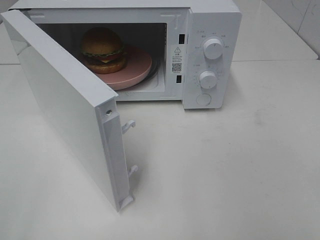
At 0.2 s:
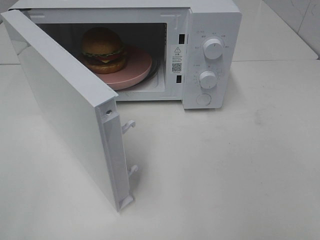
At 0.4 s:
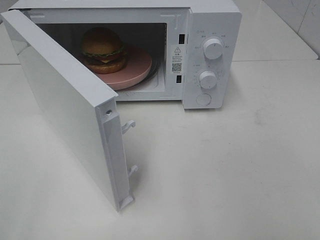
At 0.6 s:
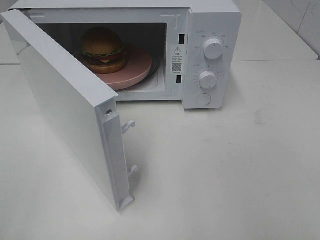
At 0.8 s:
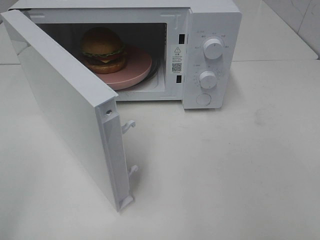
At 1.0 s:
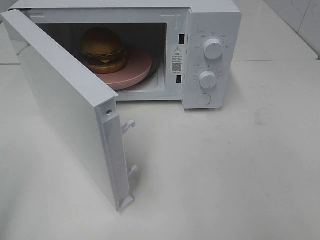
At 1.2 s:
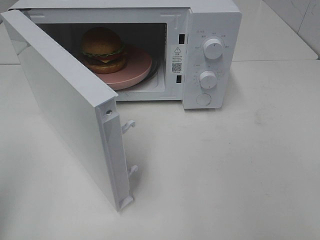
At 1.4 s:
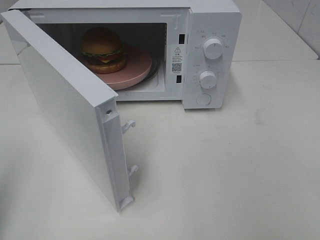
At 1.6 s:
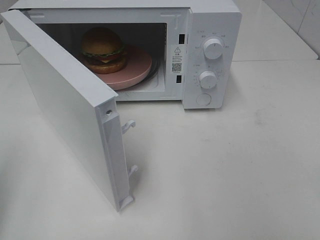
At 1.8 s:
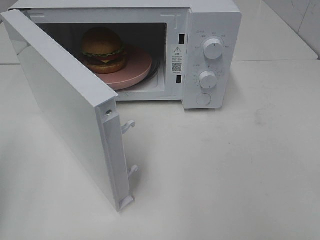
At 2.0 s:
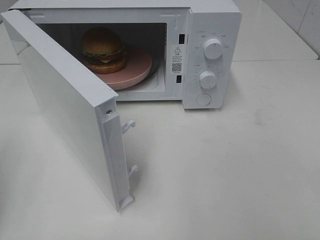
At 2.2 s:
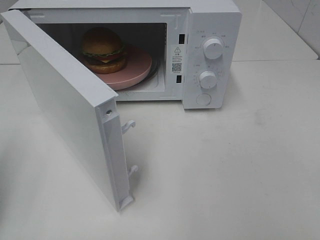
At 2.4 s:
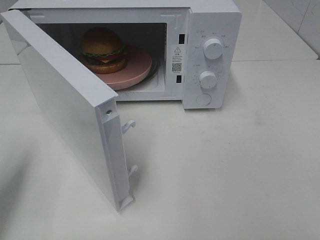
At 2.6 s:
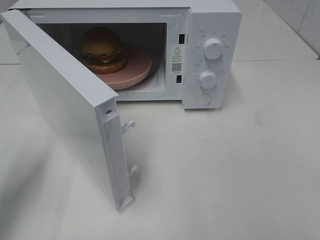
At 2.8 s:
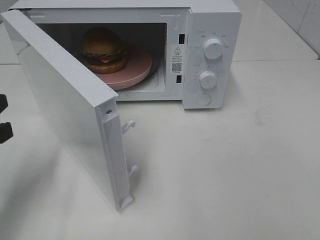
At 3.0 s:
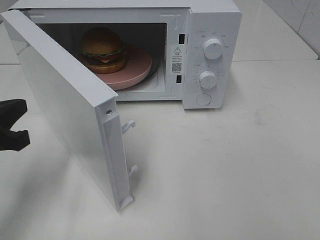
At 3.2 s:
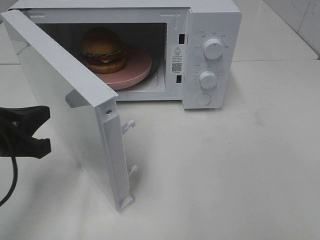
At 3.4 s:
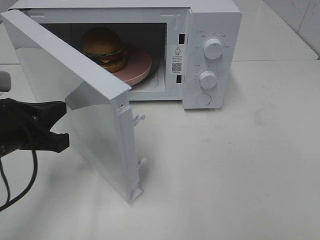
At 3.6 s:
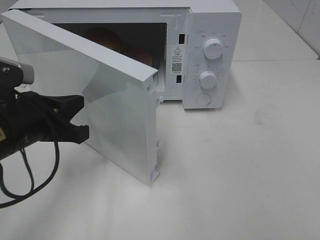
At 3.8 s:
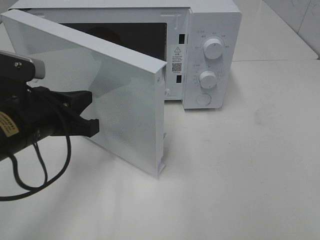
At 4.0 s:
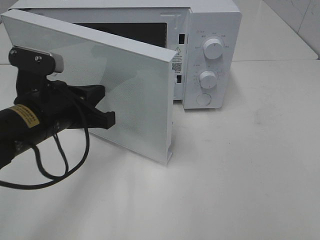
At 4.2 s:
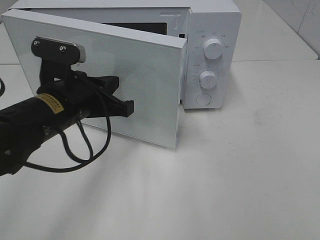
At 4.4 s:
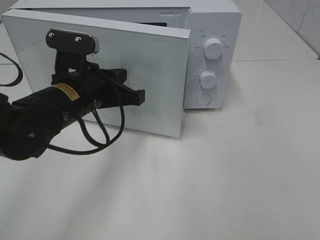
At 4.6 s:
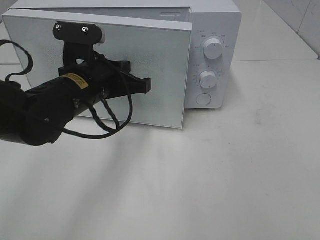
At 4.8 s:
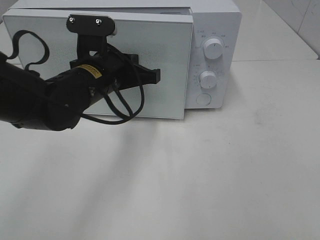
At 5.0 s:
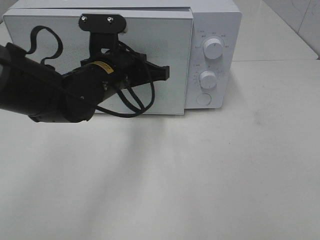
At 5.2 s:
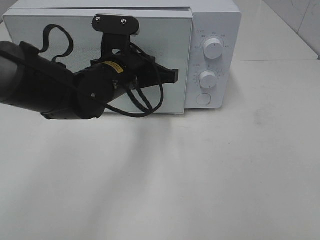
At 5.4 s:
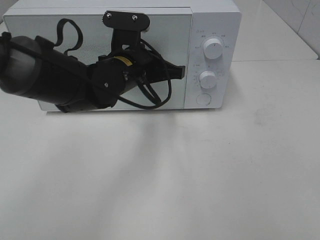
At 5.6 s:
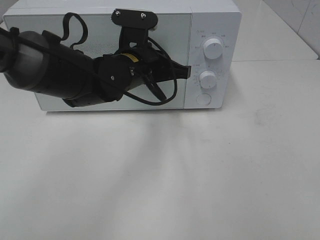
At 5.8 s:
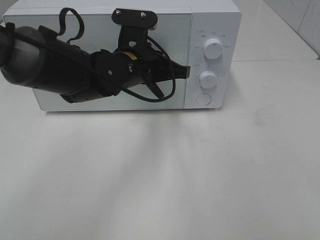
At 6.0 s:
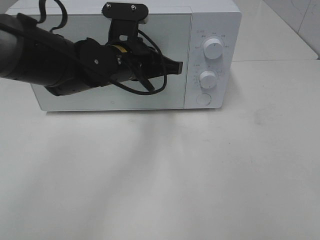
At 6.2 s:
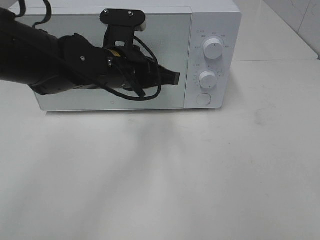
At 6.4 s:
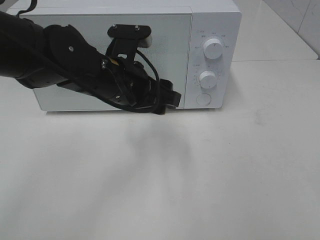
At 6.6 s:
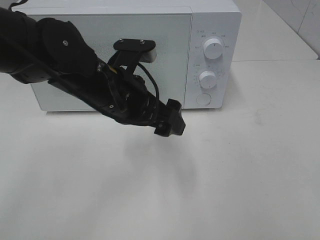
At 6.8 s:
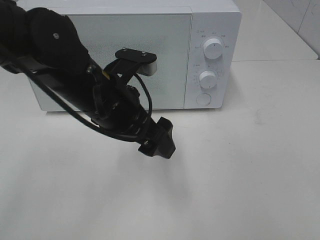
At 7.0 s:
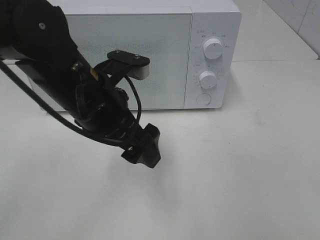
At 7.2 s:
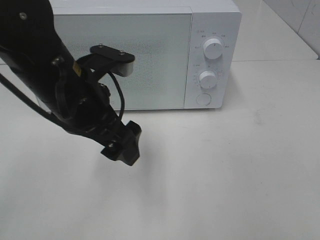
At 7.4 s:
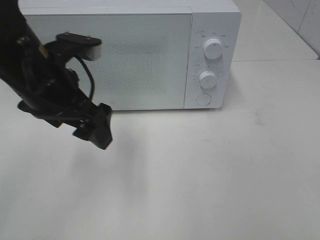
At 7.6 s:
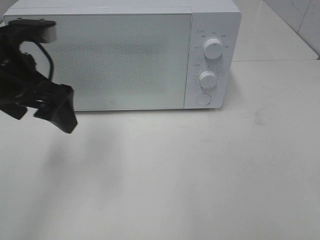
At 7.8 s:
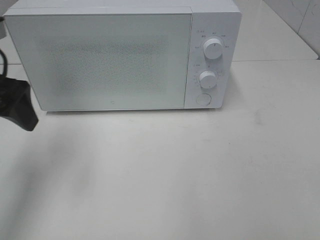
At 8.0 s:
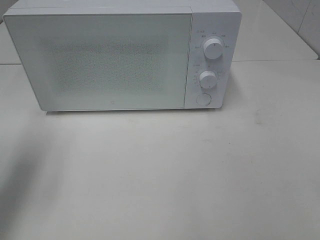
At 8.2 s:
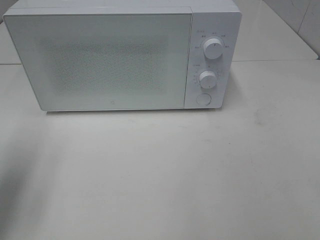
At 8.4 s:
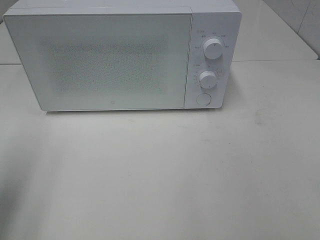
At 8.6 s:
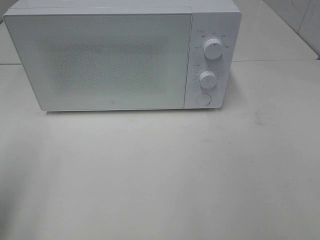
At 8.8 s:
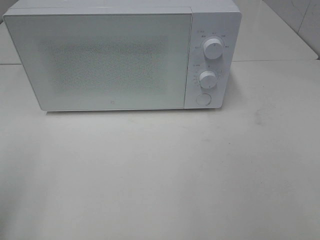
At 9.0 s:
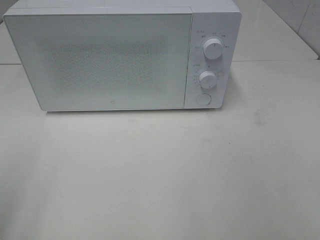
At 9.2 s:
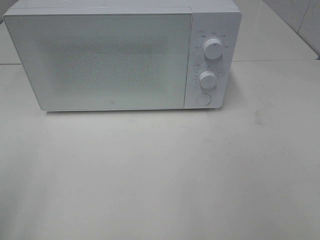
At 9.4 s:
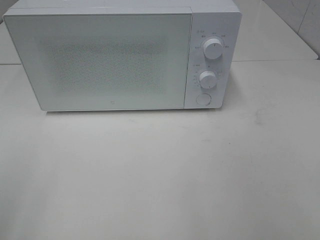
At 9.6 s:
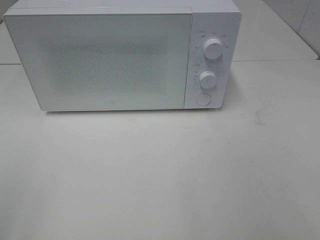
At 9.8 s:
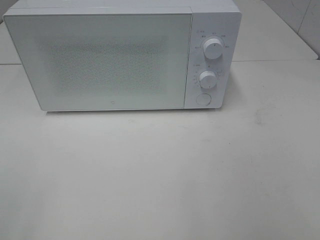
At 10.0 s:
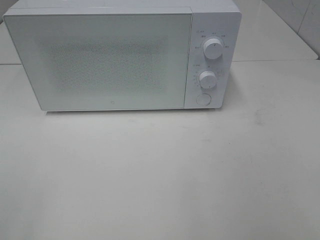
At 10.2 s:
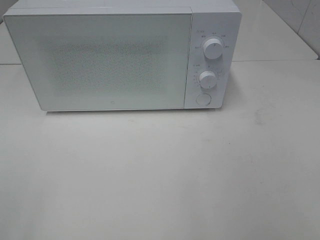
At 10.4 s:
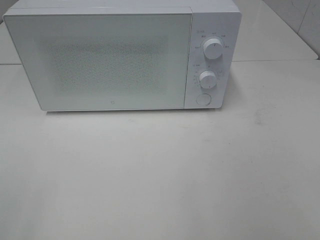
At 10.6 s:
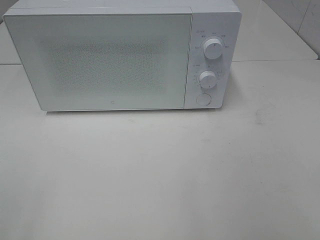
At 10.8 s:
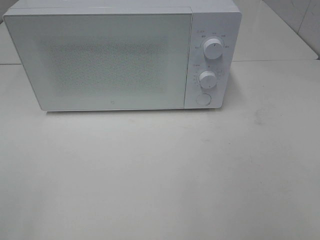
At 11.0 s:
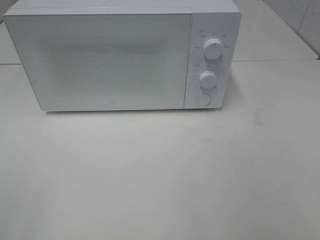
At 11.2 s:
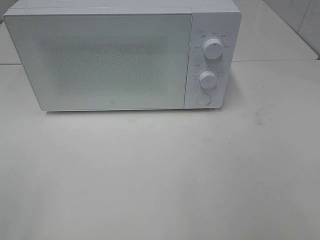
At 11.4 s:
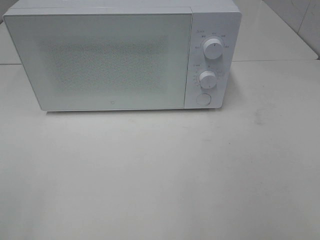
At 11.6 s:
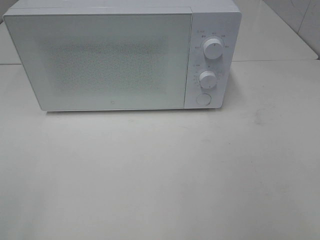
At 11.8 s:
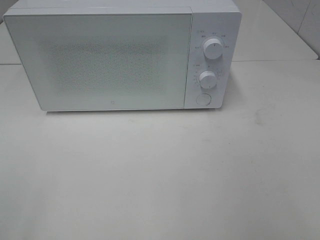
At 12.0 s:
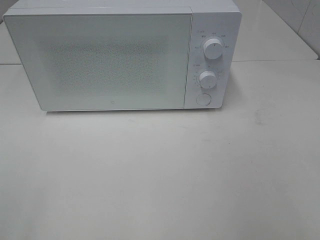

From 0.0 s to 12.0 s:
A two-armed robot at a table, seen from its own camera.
Task of the whole recording: Heat the burger.
Step, from 0.0 s to 6.0 s: Left hand: close the microwave door.
From 1.6 s to 3.0 s: The left gripper moves downward, forward and to the right, about 15 cm.
From 3.0 s to 4.4 s: The left gripper goes about 15 cm to the right and forward.
From 4.4 s to 6.0 s: The left gripper moves to the right and forward, about 10 cm.
From 6.0 s to 7.6 s: The left gripper travels to the left, backward and upward by about 20 cm, and opens.
From 7.6 s to 9.0 s: The left gripper travels backward and to the left by approximately 25 cm.

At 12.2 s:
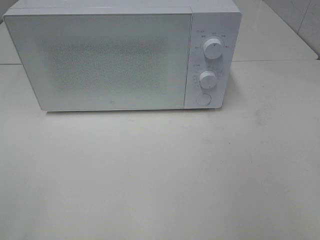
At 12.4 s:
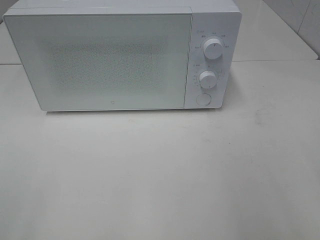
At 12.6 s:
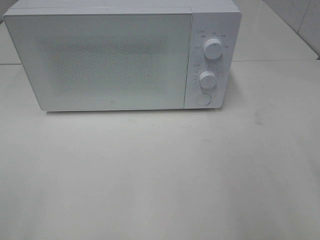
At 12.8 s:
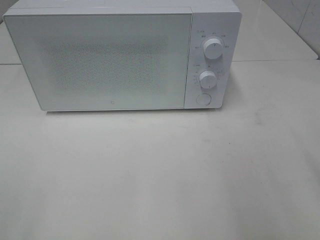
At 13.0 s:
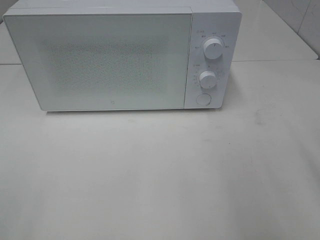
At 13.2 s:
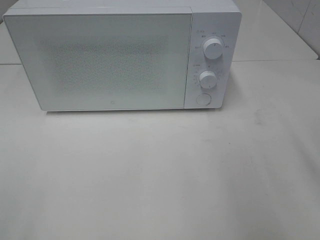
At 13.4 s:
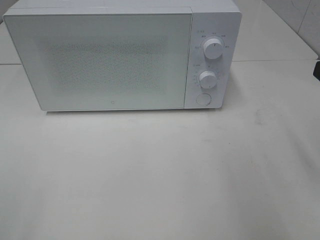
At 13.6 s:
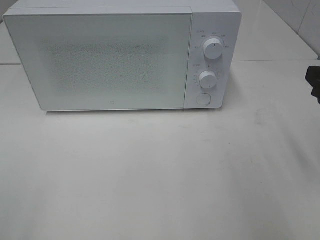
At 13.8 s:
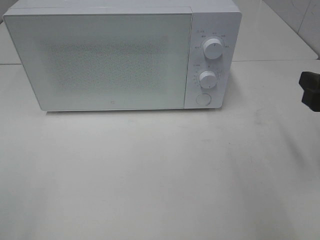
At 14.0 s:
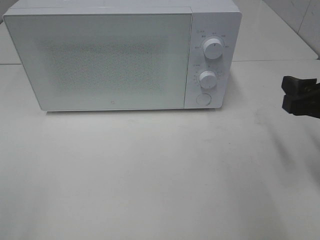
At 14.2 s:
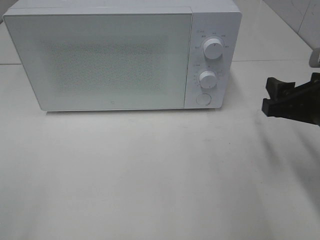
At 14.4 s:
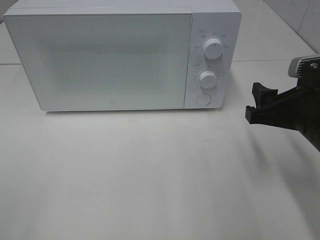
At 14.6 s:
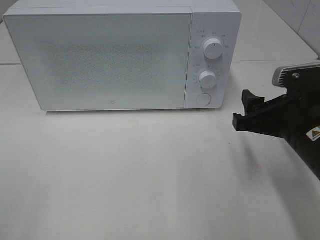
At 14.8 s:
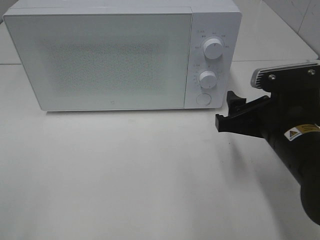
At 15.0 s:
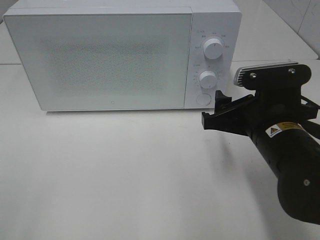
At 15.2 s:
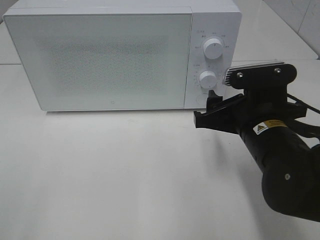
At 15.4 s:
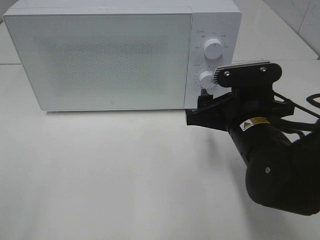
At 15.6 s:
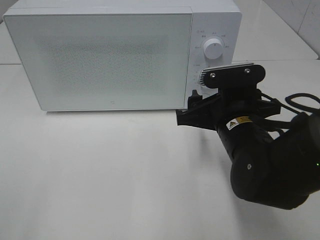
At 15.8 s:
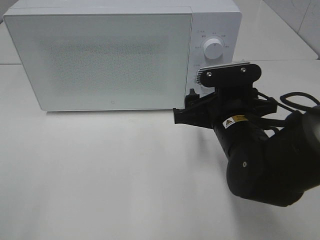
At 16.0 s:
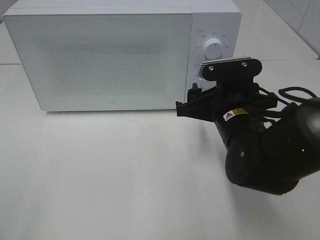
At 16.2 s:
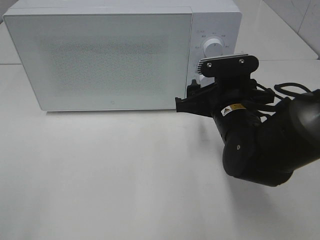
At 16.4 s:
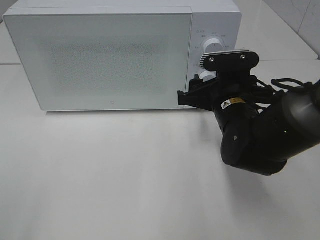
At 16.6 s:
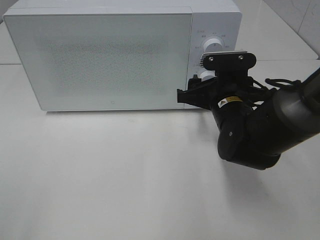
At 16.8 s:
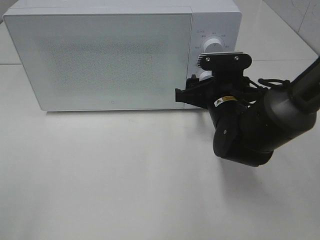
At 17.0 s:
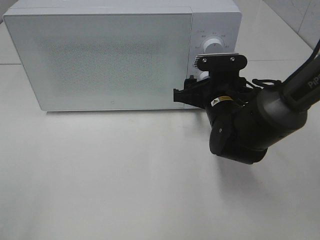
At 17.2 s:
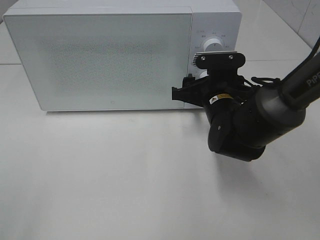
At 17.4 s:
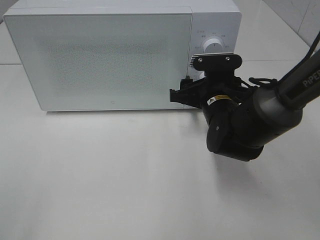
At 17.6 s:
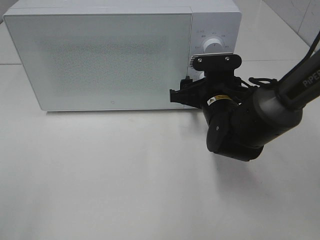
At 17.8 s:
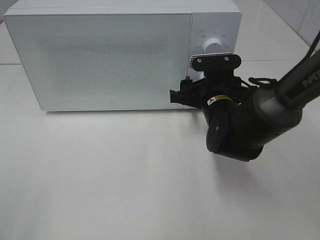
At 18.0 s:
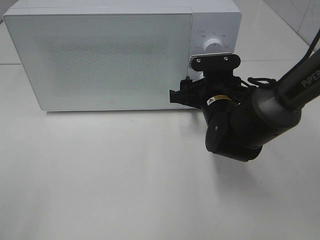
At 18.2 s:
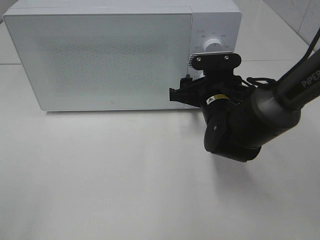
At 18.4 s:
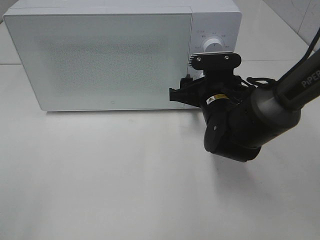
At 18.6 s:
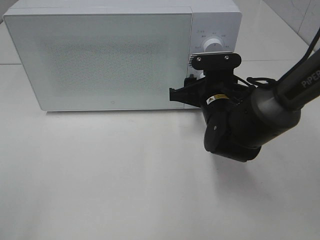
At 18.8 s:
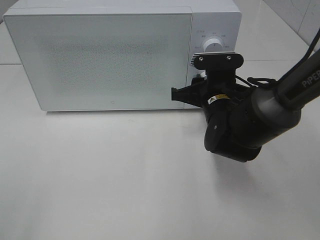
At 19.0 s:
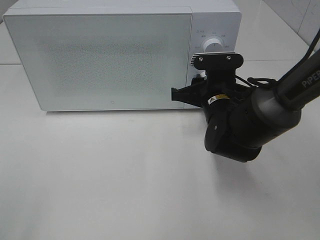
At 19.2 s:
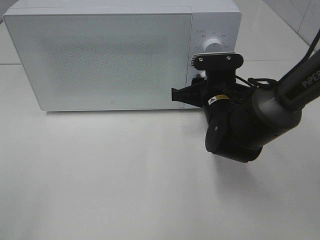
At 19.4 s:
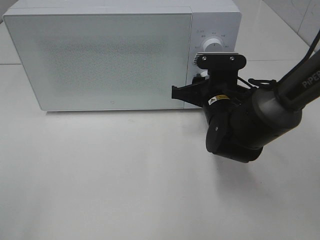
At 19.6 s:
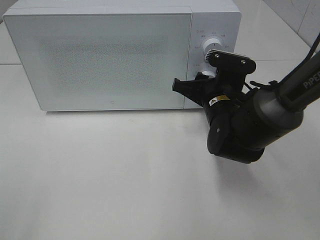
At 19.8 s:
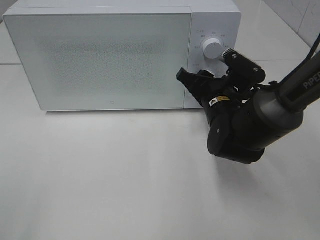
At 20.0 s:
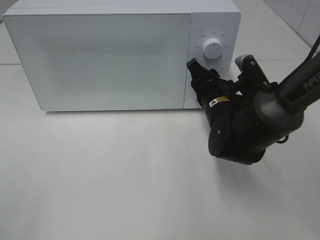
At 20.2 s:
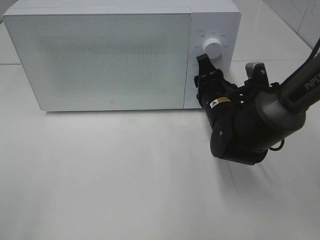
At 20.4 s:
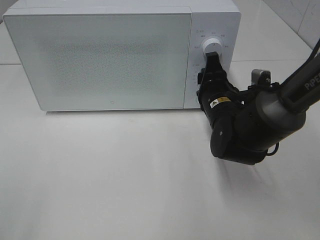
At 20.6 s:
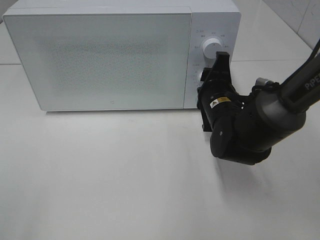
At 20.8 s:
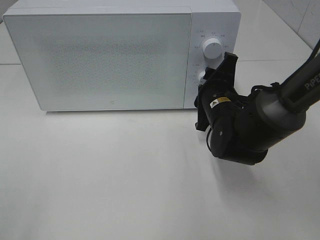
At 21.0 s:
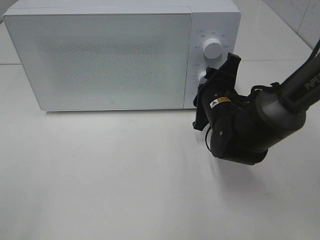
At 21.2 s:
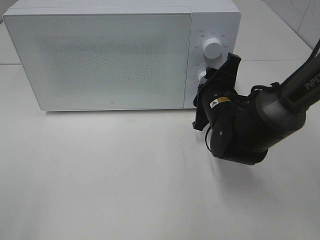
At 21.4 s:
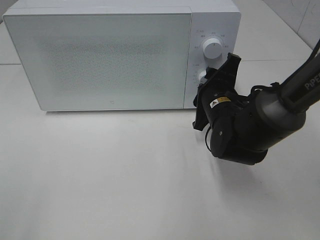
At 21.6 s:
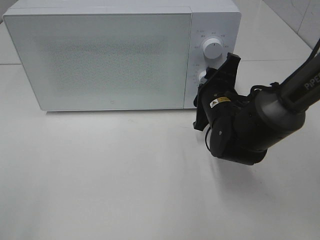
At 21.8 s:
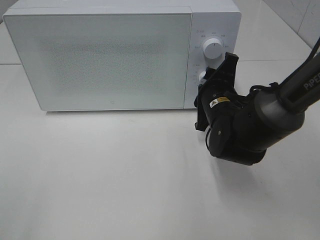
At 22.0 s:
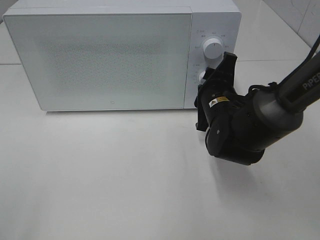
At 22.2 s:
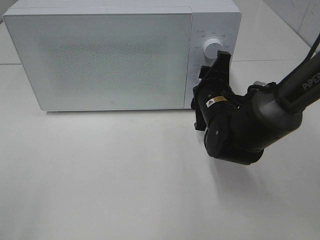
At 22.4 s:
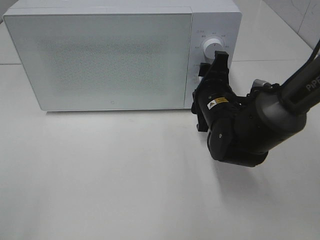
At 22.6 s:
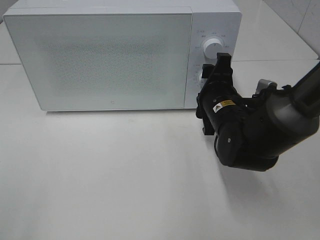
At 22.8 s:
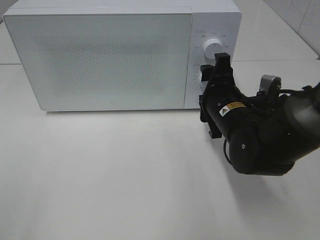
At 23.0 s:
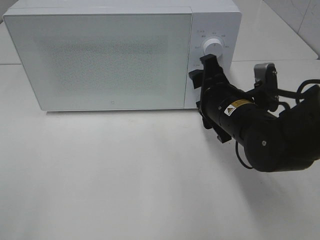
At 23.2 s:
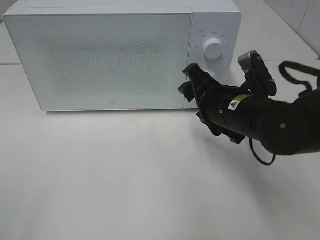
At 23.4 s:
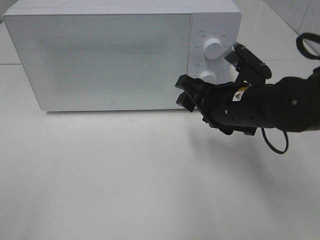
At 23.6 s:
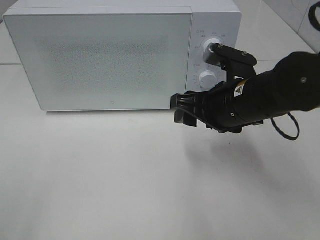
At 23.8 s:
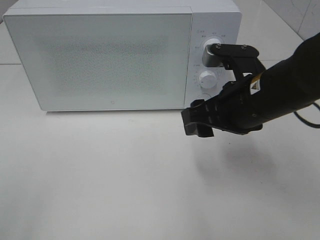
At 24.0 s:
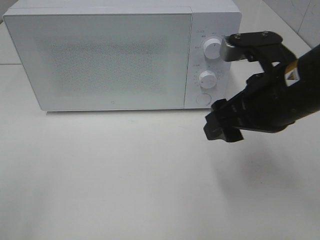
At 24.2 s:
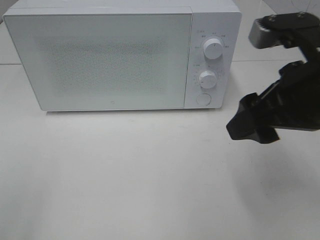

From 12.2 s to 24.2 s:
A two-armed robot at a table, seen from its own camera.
Task of the whole recording: Heat the burger.
Step, from 12.2 s to 22.2 s: Right hand: twist timer button.
From 12.2 s to 13.8 s: The right gripper travels forward and downward by approximately 15 cm.
From 13.8 s to 15.2 s: The right gripper heads to the left, covering about 15 cm.
From 15.2 s to 16.6 s: The right gripper moves forward, approximately 10 cm.
From 16.6 s to 18.2 s: The grippers make only small movements.
From 21.2 s to 22.6 s: The grippers make only small movements.
From 22.6 s to 24.2 s: The right gripper shifts some 20 cm upward and backward.
